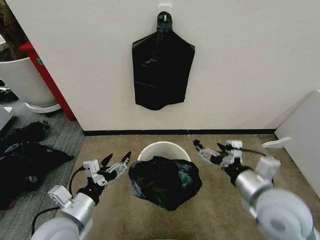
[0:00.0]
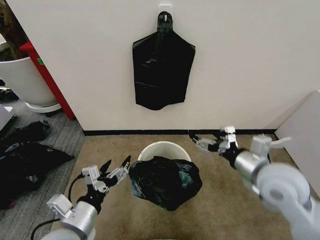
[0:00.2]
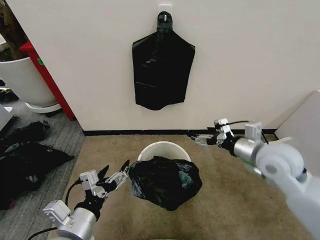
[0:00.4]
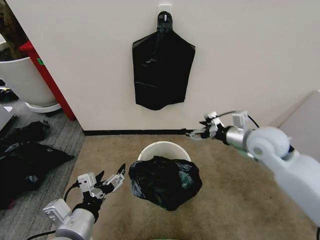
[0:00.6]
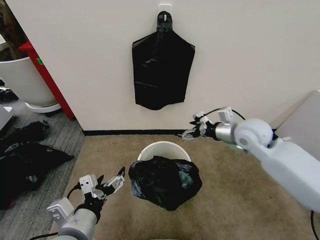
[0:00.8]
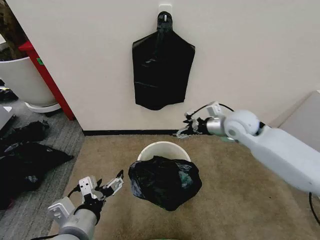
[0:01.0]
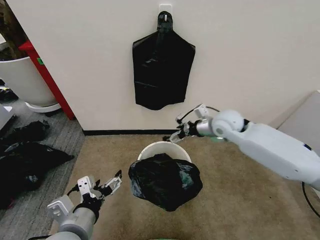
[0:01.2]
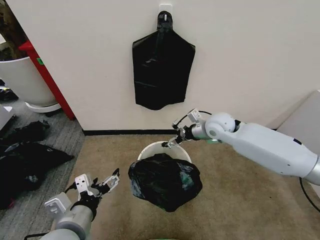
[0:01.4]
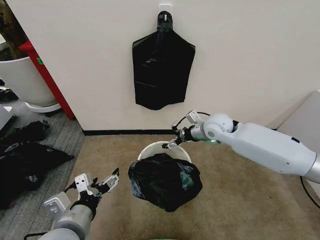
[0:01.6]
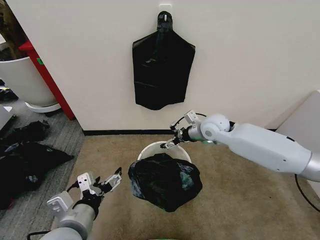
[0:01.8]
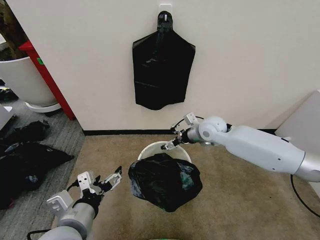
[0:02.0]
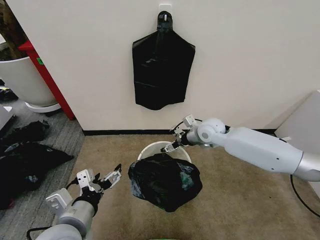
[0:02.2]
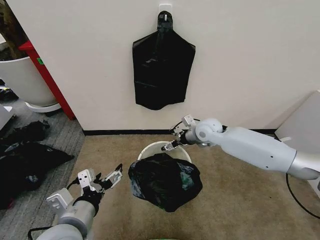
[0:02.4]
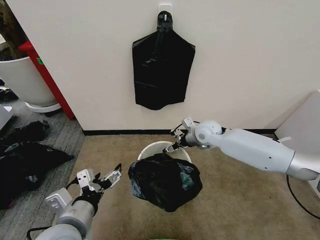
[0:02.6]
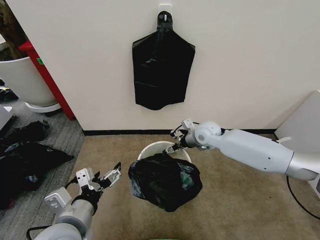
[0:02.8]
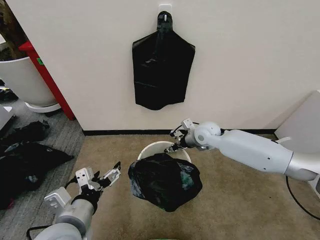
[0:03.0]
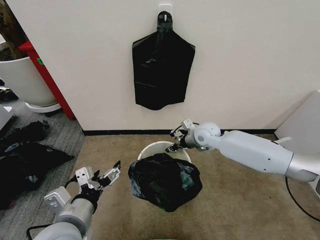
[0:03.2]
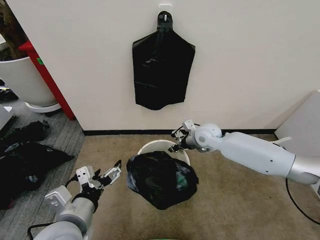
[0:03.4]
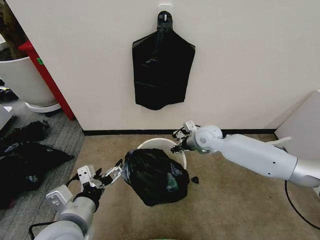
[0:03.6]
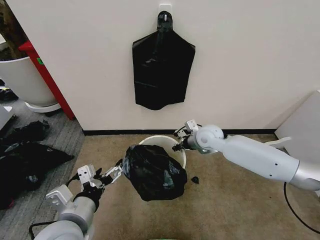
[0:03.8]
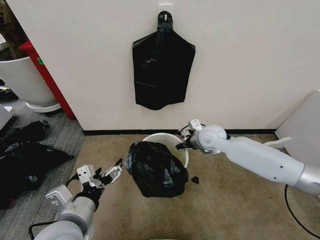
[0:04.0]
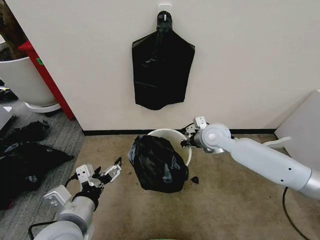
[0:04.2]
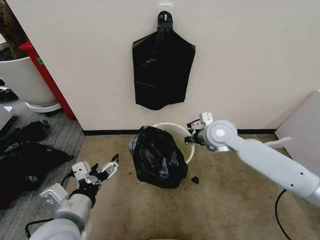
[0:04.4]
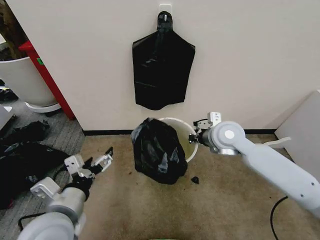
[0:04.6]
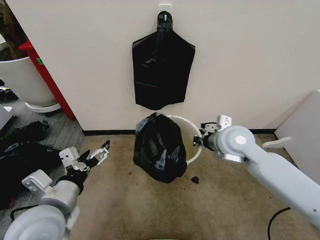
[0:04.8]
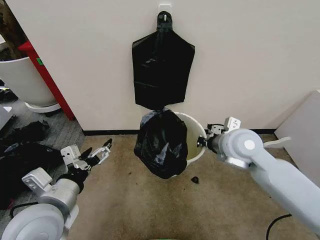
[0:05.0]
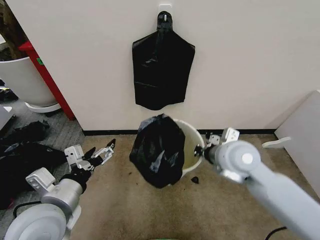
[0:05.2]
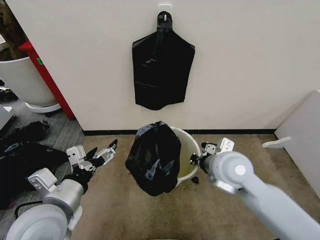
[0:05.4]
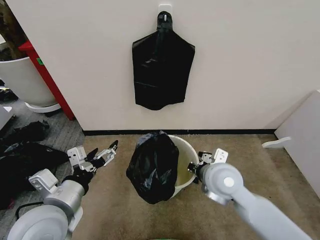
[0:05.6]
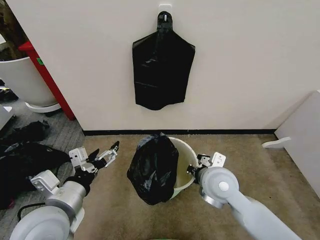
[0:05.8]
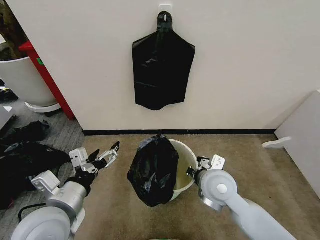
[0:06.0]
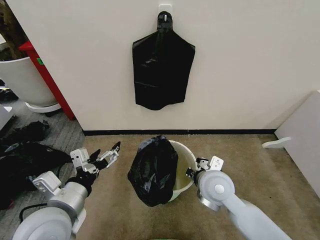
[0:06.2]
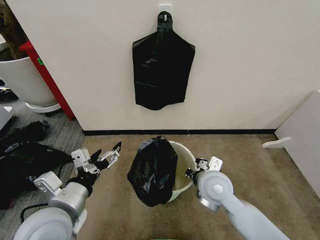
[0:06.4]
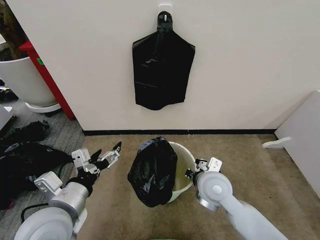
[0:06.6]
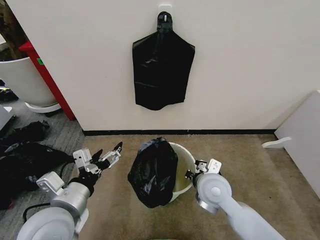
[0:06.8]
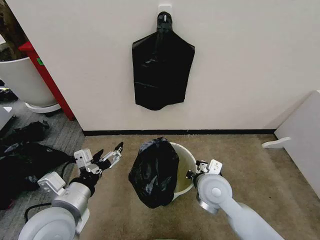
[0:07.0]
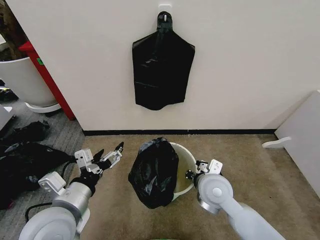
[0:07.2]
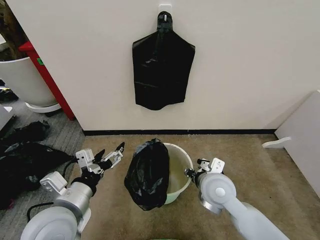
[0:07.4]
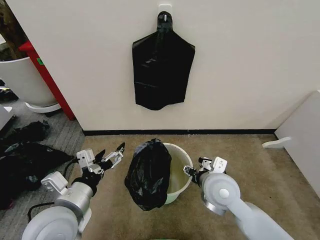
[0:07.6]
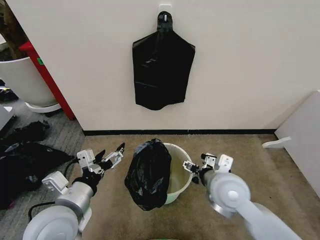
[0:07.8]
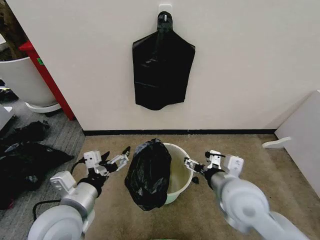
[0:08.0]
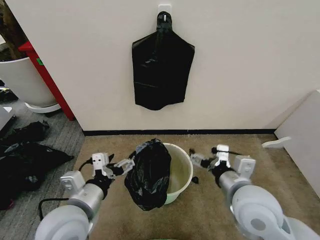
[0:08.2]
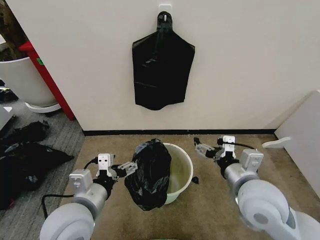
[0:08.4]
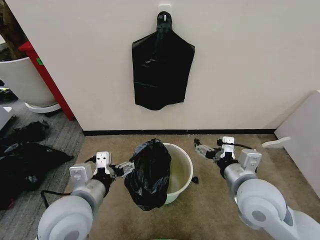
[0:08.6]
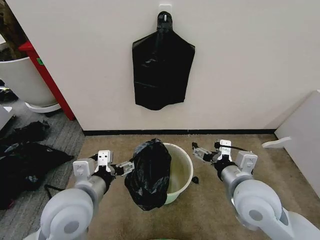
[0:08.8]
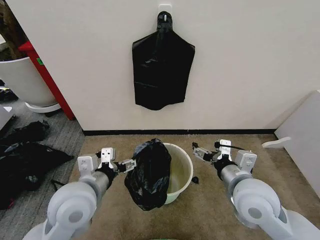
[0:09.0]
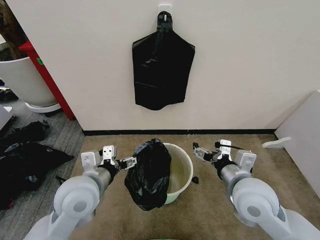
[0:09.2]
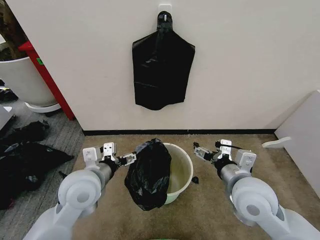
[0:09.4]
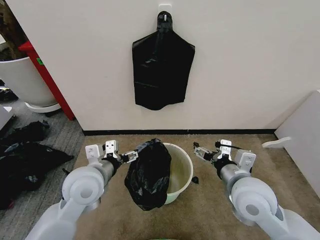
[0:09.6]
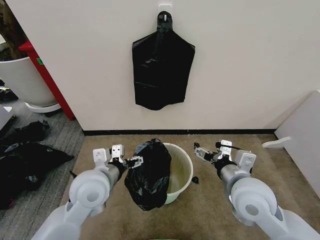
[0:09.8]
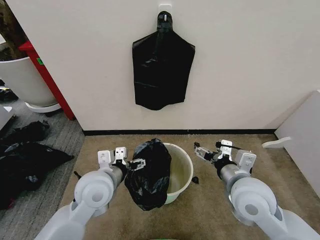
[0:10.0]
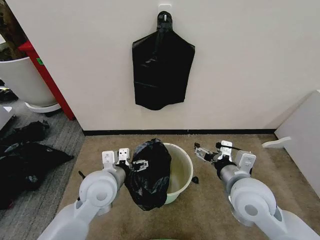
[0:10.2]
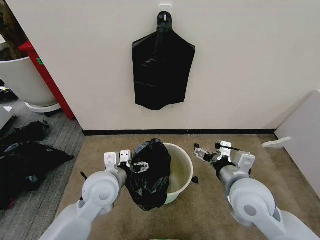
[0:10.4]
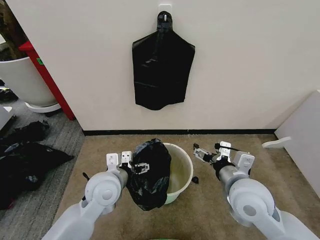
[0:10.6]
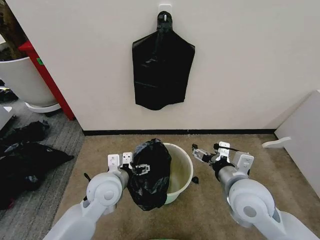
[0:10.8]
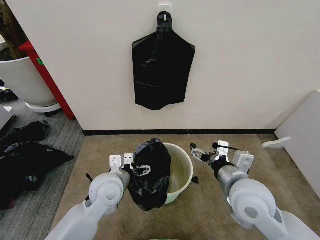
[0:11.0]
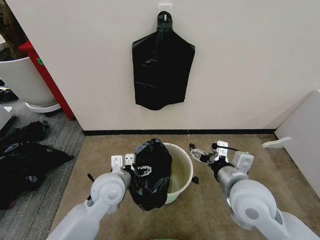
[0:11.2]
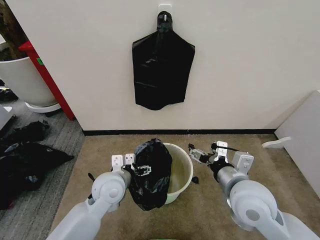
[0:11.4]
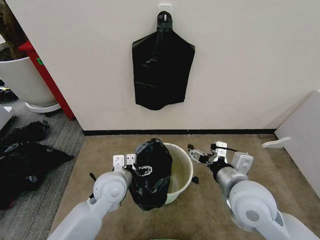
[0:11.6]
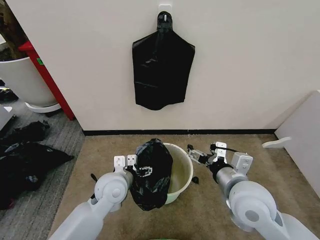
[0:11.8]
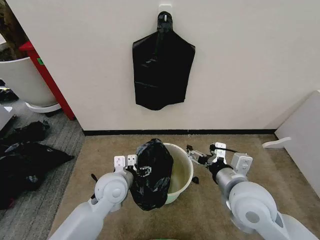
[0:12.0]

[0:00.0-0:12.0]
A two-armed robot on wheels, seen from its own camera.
Task of the whole recording: Place the garbage bag over the trash bin.
0:00.0 to 0:01.6: The right gripper heads forward, covering roughly 30 cm, while the left gripper moves some 5 cm.
0:01.6 to 0:03.0: The right gripper heads downward, covering roughly 5 cm, and closes its fingers.
0:03.0 to 0:04.4: The right gripper goes some 10 cm upward and backward, and closes.
0:04.4 to 0:06.0: The right gripper travels backward and downward by some 15 cm.
0:06.0 to 0:07.6: The right gripper opens.
0:07.6 to 0:09.0: The left gripper ends up some 5 cm from where it was. Meanwhile the right gripper moves to the right and upward, some 5 cm.
0:09.0 to 0:10.4: The left gripper goes about 10 cm forward and downward.
0:10.4 to 0:12.0: The left gripper moves approximately 5 cm.

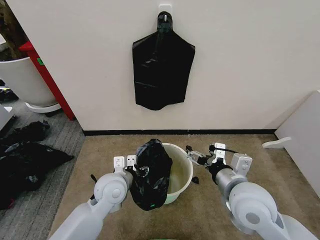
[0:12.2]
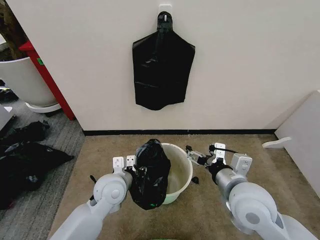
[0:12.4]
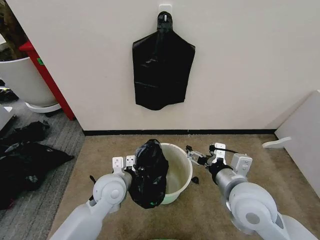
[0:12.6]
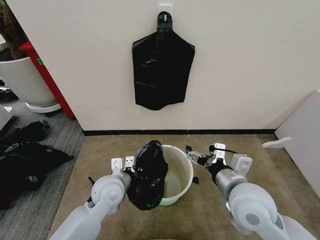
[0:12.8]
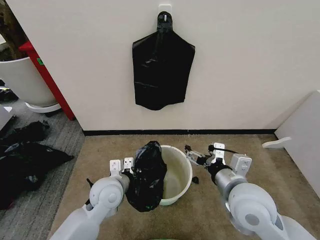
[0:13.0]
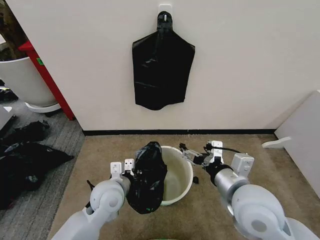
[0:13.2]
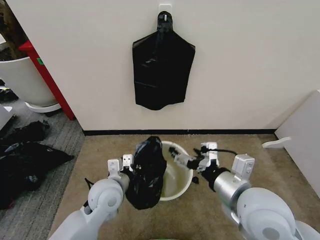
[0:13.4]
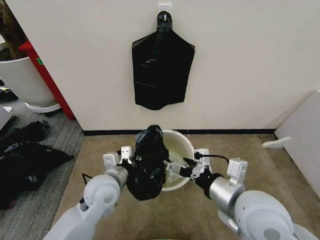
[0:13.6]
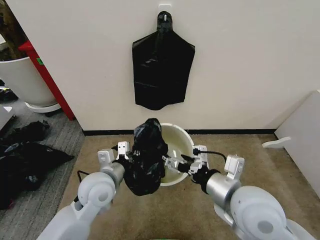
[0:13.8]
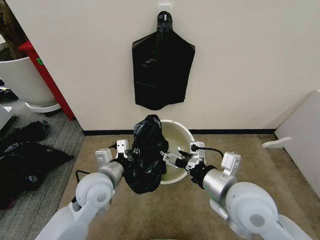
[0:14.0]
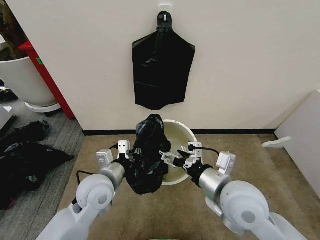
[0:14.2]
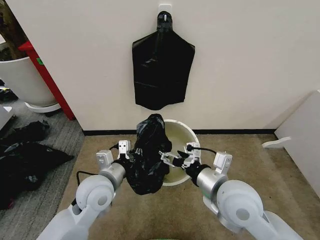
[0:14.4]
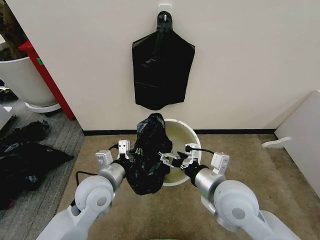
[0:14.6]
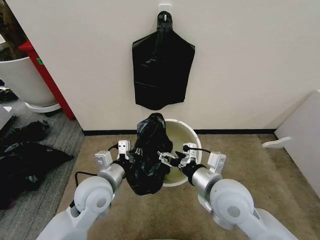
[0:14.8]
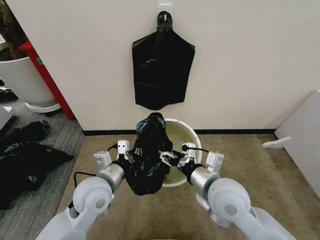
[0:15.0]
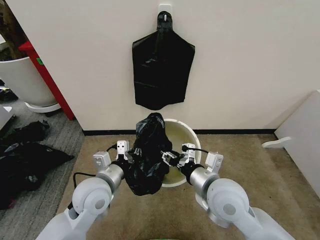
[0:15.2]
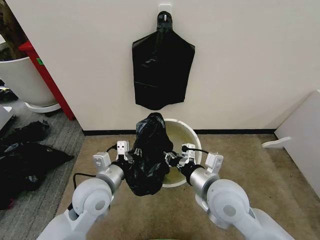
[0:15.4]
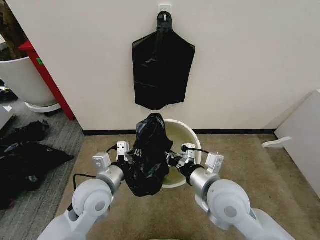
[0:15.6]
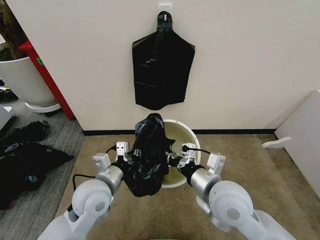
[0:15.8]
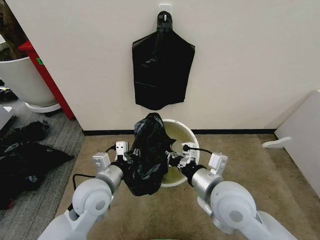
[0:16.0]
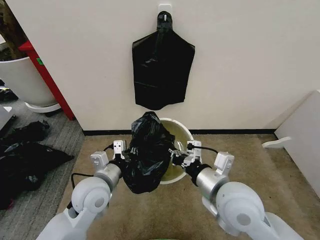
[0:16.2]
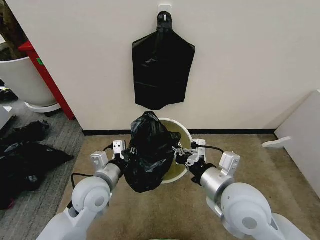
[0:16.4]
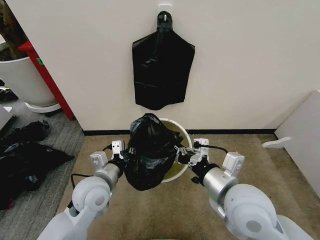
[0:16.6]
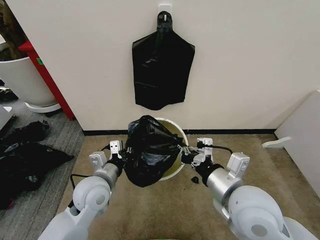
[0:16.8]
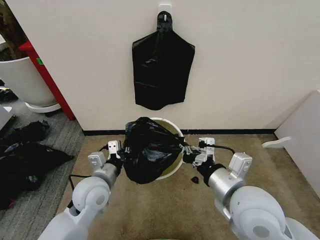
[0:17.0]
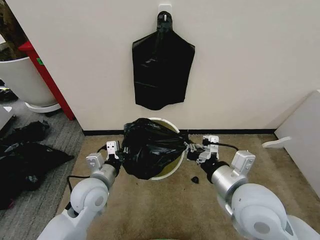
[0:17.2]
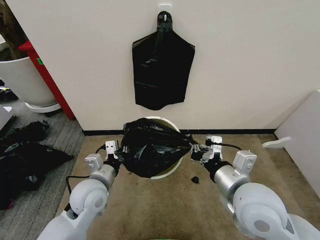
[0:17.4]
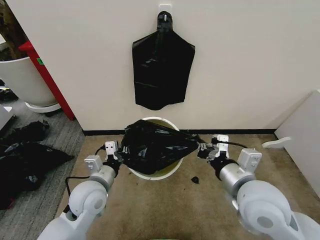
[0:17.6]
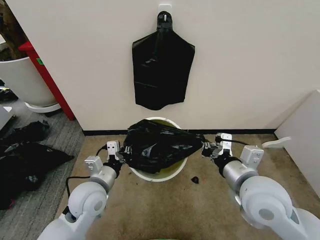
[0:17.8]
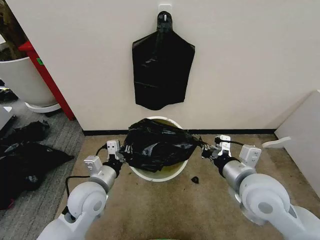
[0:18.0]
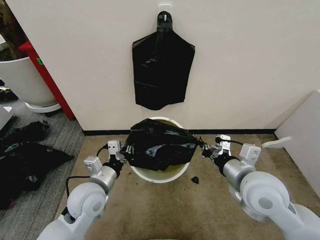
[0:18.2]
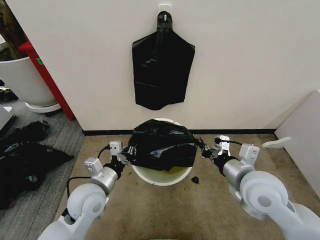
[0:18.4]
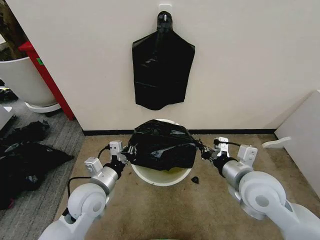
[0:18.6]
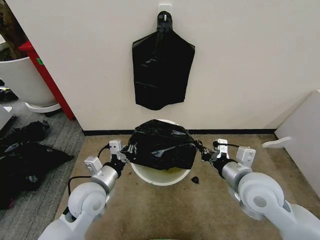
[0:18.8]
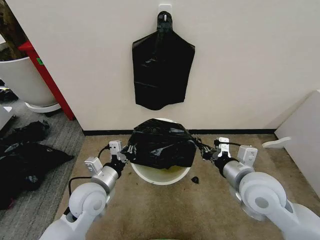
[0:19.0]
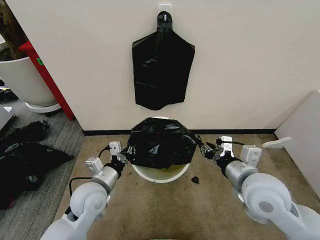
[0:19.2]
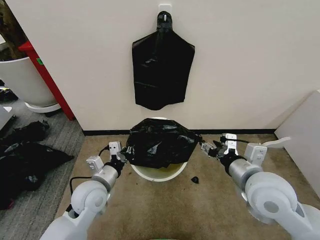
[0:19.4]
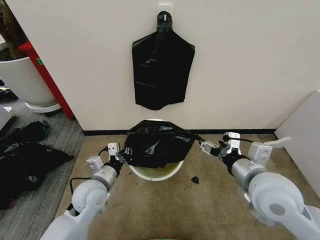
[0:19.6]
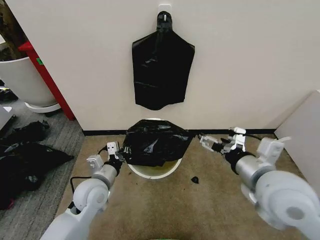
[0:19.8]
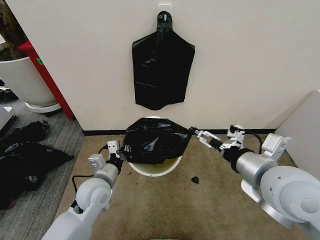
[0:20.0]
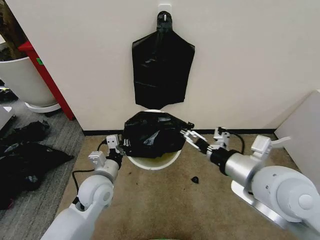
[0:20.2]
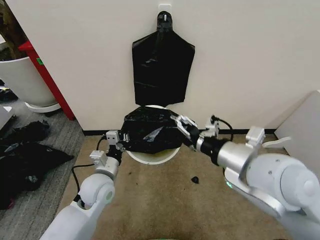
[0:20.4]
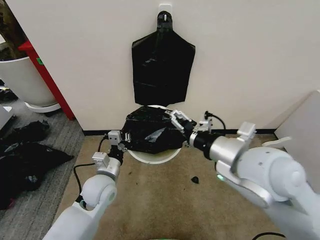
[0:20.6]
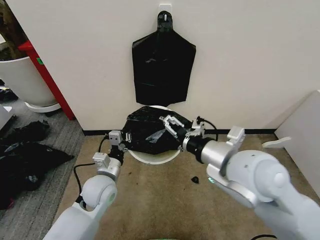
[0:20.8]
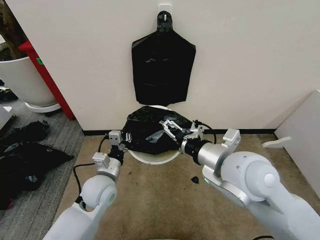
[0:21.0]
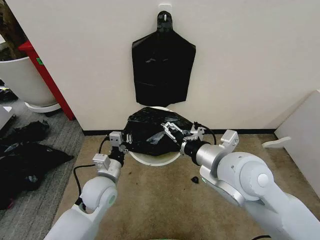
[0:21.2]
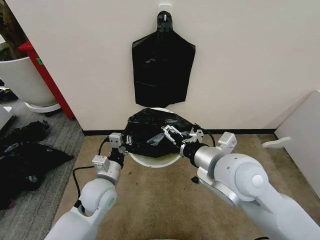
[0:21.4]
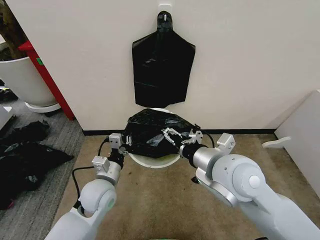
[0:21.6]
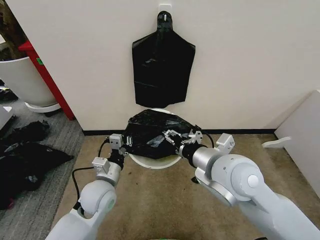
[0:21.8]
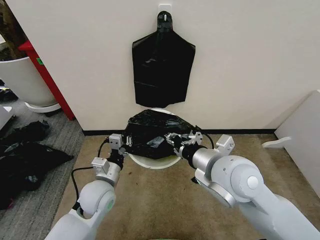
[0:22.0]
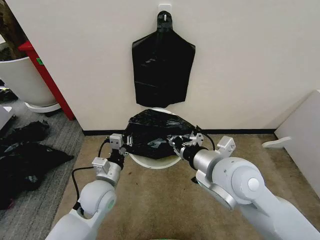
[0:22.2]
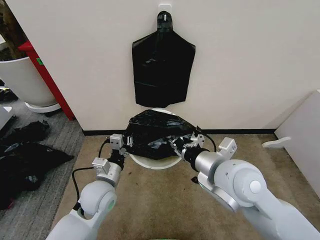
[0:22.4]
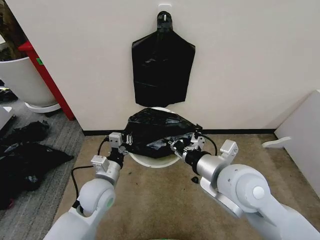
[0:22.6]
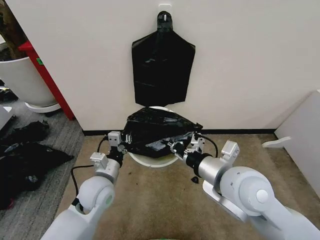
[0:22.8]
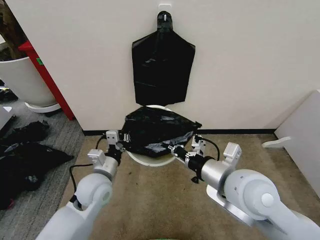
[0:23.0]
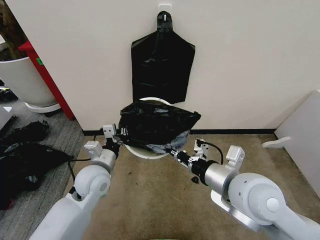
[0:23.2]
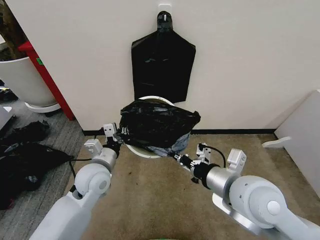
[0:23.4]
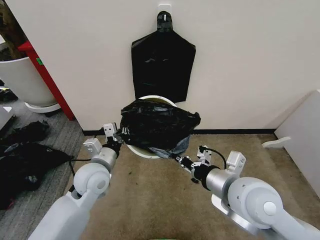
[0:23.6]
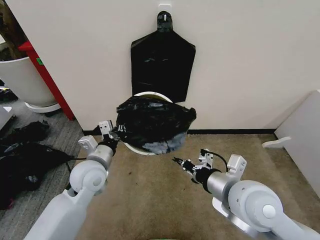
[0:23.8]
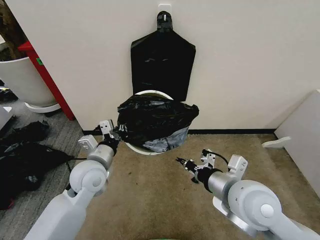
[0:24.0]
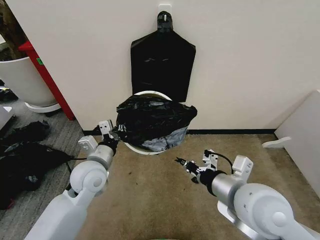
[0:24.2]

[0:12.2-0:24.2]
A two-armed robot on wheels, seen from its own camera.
Task of the whole recording: Place the garbage bag over the trash bin.
0:12.2 to 0:13.8: The left gripper changes place by approximately 5 cm, and closes up.
0:13.8 to 0:15.2: The right gripper ends up approximately 5 cm from where it was, and closes.
0:15.2 to 0:16.6: The right gripper ends up some 5 cm from where it was, and closes its fingers.
0:16.6 to 0:18.2: The right gripper travels to the right by some 5 cm.
0:18.2 to 0:19.8: The right gripper travels upward by roughly 5 cm, and opens.
0:19.8 to 0:21.2: The right gripper travels to the left by approximately 5 cm.
0:21.2 to 0:22.6: The right gripper closes.
0:22.6 to 0:24.2: The left gripper heads upward, covering about 5 cm.
